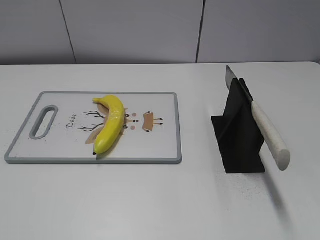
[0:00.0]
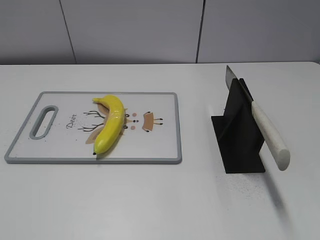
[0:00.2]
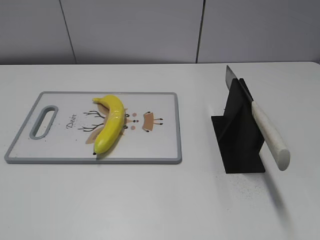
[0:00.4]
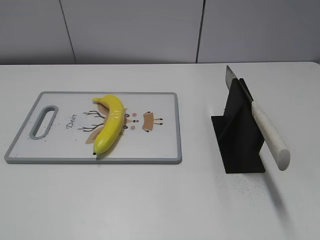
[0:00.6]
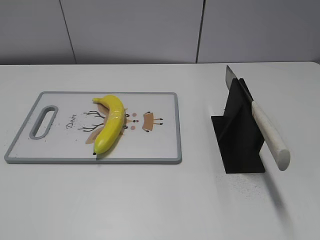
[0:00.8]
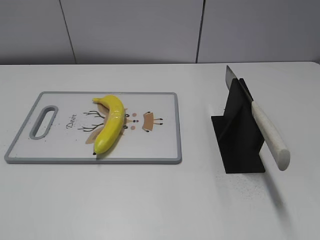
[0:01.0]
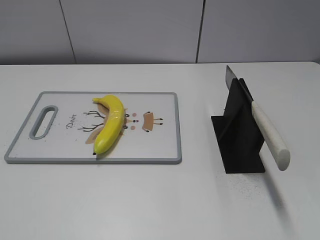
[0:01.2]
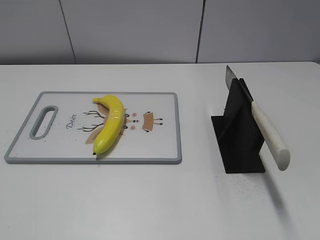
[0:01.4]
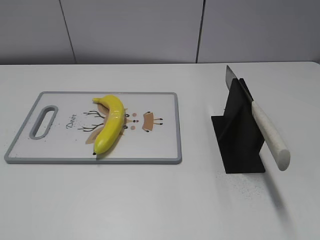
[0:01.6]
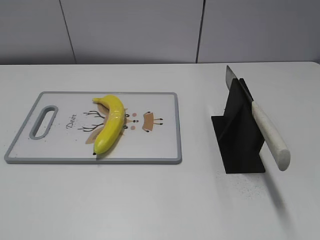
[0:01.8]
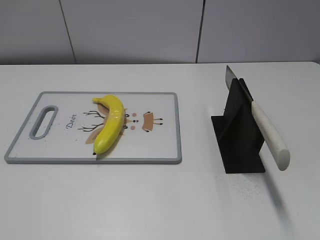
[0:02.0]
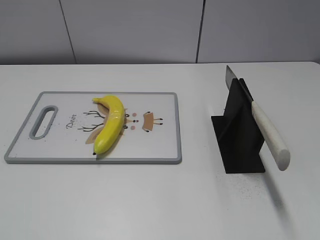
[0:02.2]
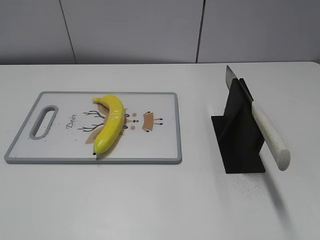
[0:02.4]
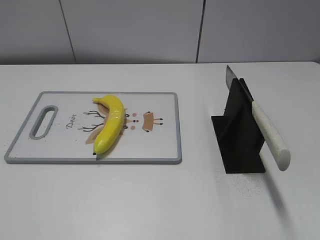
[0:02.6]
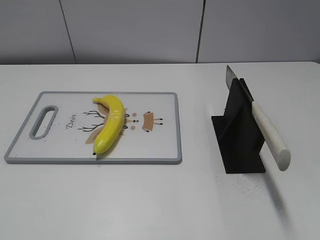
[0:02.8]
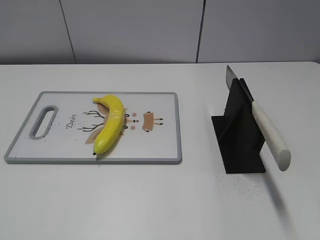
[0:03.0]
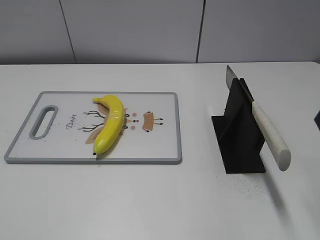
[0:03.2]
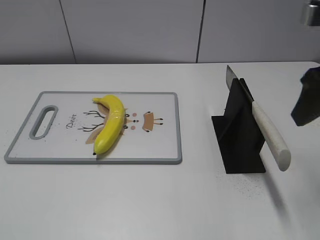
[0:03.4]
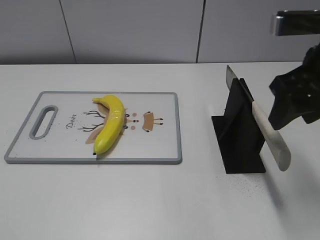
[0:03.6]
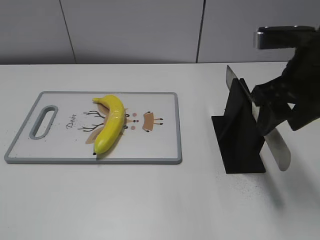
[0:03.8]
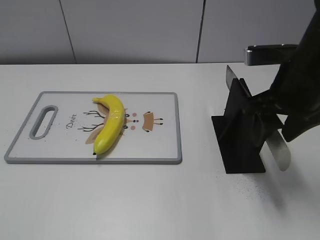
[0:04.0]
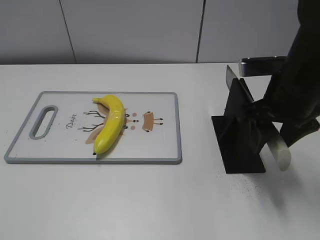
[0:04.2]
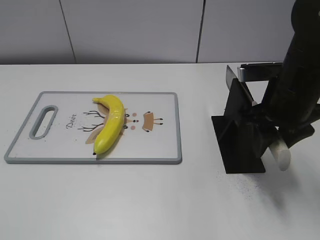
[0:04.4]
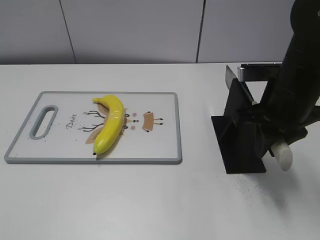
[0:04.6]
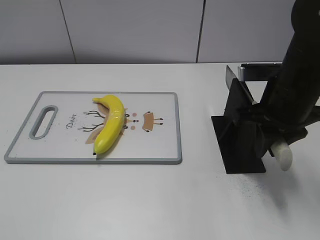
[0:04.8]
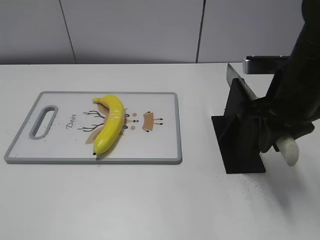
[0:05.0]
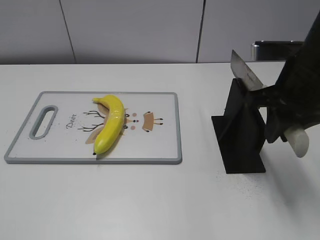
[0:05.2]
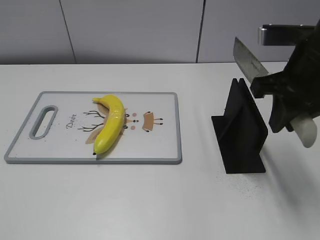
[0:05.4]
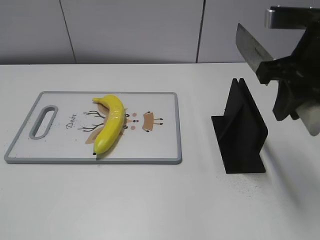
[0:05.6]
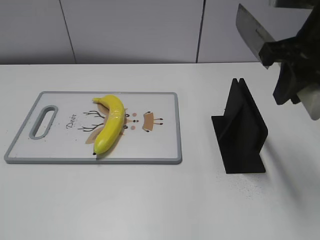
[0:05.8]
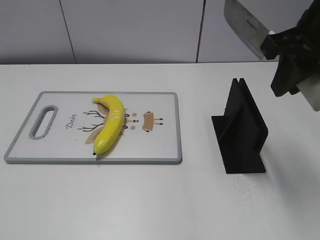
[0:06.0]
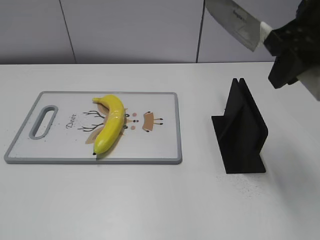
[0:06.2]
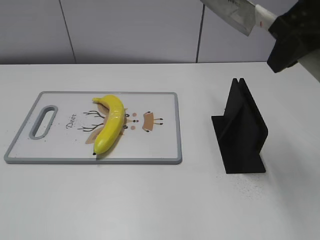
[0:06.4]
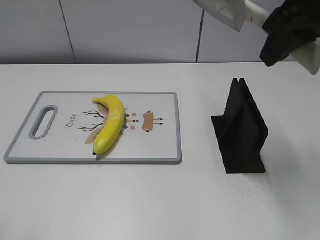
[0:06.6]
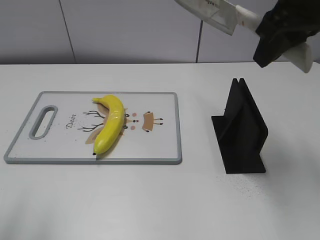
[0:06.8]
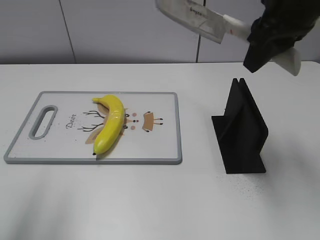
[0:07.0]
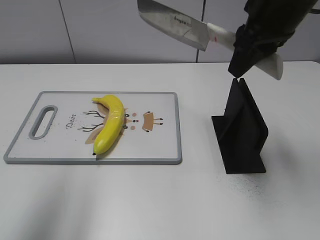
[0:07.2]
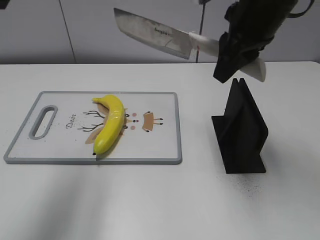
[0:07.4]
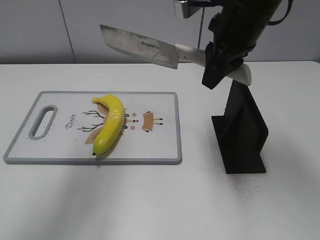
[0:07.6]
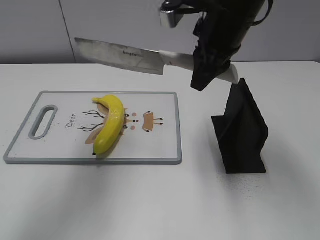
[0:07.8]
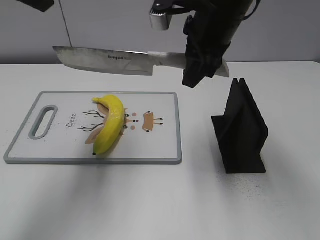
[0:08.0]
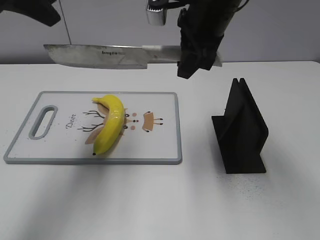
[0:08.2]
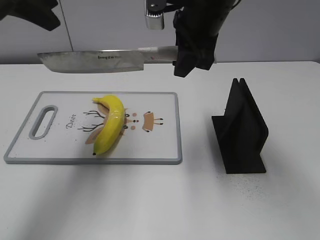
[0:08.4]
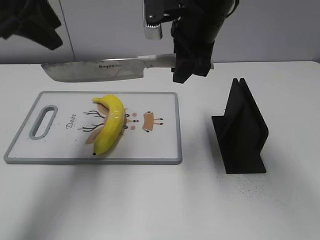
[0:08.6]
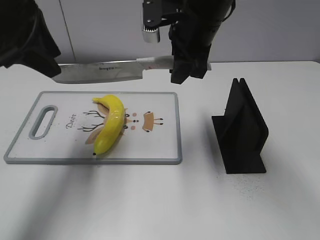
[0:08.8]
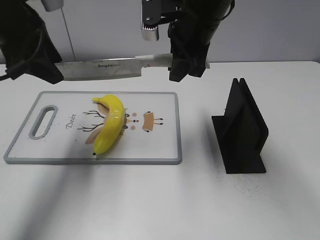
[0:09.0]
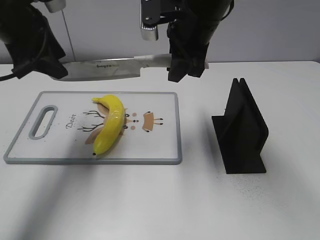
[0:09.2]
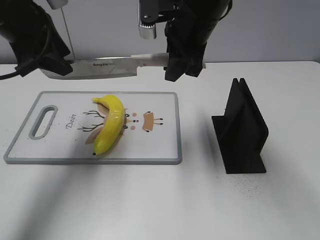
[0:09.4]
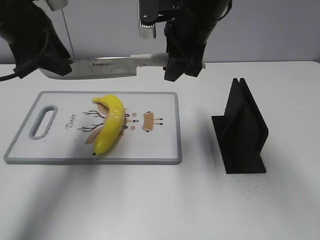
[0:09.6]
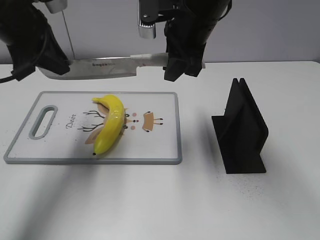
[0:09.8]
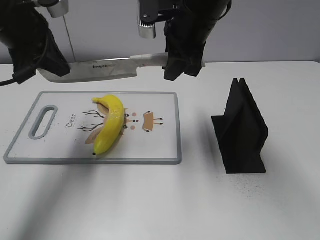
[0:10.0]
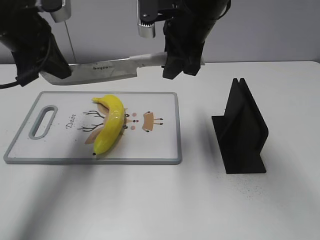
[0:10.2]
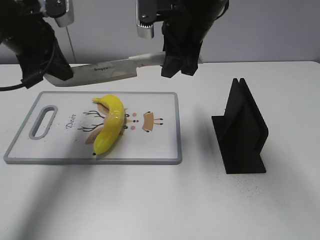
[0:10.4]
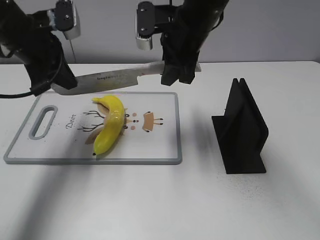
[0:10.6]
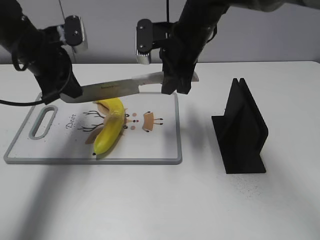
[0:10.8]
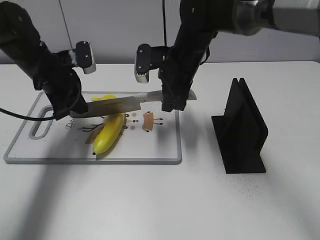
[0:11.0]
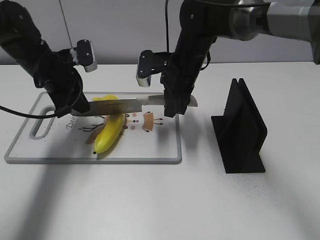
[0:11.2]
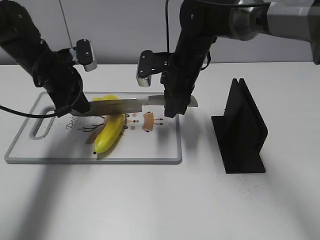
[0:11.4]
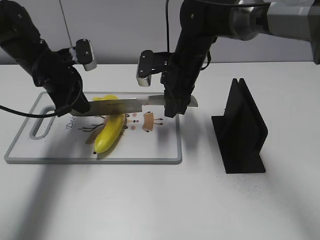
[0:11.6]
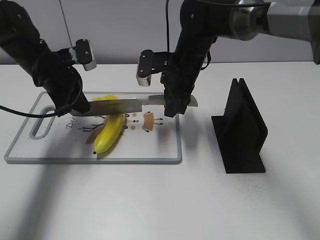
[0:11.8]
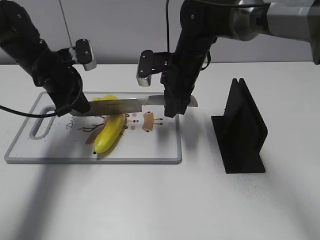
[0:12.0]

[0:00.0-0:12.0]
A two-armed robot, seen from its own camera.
Task of the whole recording: cut plastic banana.
Step, 0:00.0 to 0:05.6: Grab the knife handle with your right hand.
0:03.0 to 0:04.4: The right gripper is displaced downward, forward and to the left by some 20 cm, and closes.
0:04.4 to 0:06.0: The right gripper is displaced upward by roughly 10 cm, and closes its fingers.
0:06.0 to 0:07.6: The right gripper shifts about 10 cm forward and to the left, while the left gripper goes some 30 cm forward and upward.
0:07.6 to 0:09.0: The right gripper heads to the left, covering about 5 cm. The left gripper shifts some 15 cm downward and forward.
0:09.0 to 0:10.4: The left gripper closes up.
0:10.4 to 0:12.0: Both grippers move downward, some 10 cm.

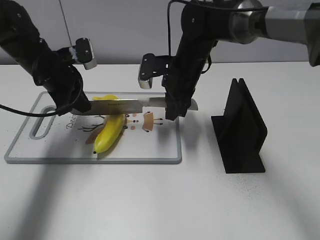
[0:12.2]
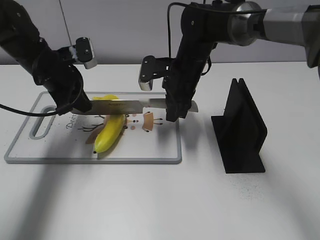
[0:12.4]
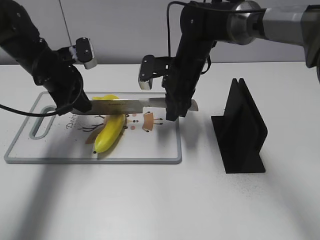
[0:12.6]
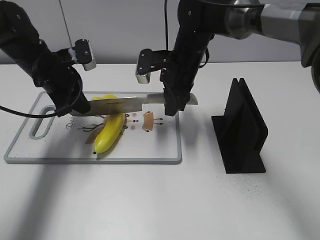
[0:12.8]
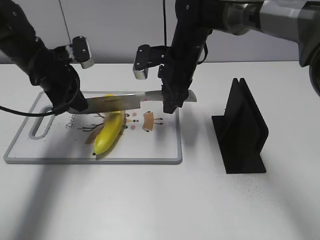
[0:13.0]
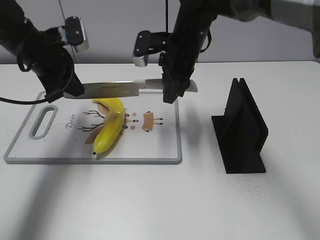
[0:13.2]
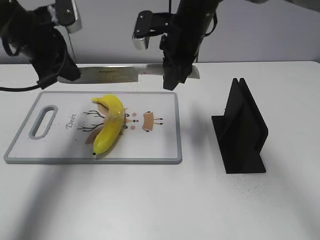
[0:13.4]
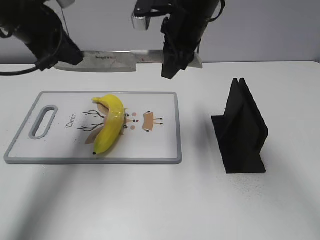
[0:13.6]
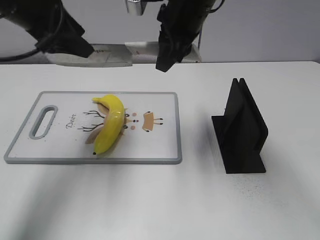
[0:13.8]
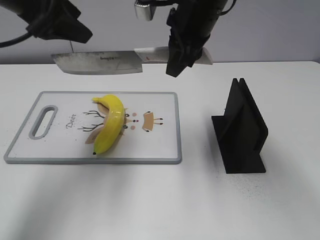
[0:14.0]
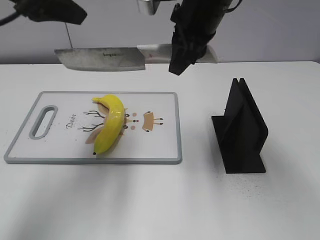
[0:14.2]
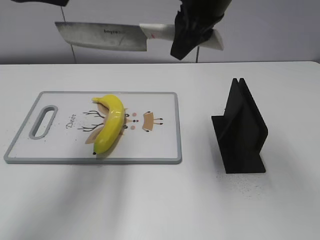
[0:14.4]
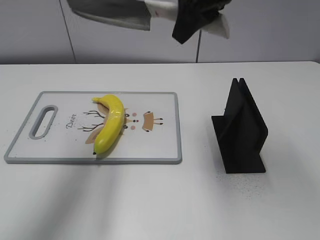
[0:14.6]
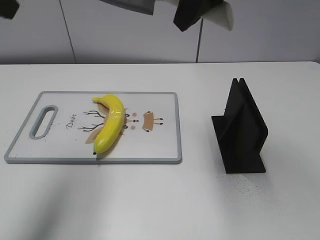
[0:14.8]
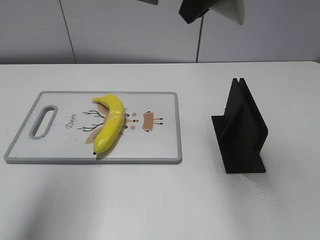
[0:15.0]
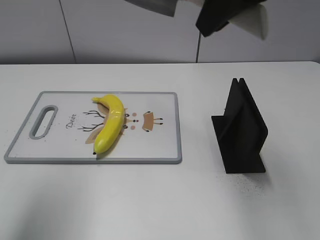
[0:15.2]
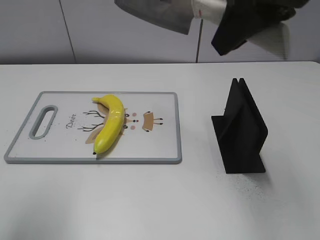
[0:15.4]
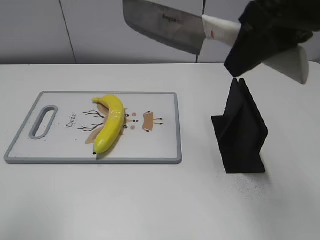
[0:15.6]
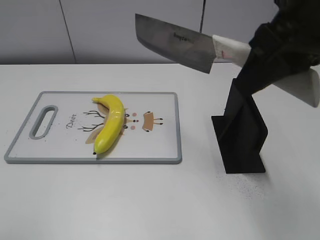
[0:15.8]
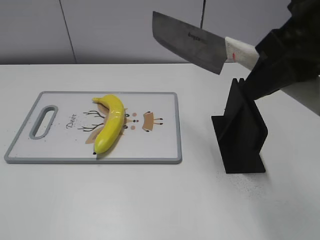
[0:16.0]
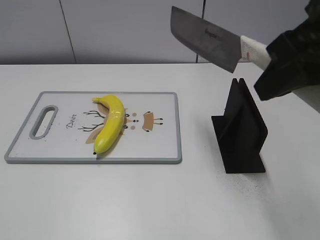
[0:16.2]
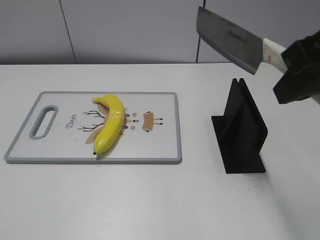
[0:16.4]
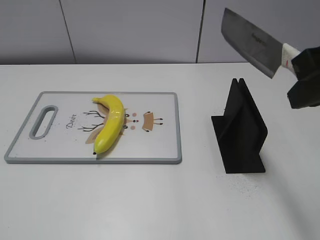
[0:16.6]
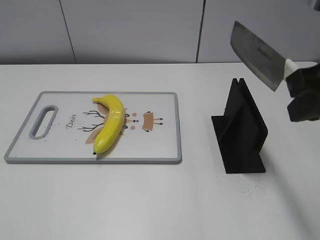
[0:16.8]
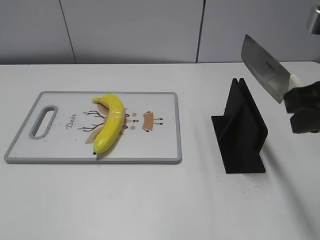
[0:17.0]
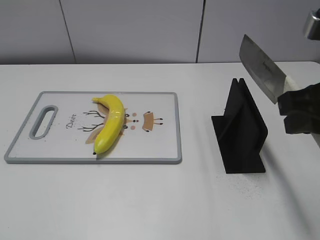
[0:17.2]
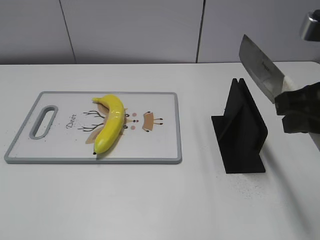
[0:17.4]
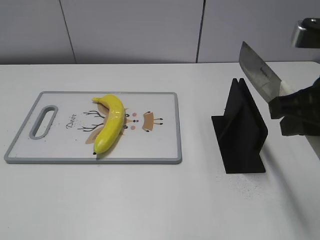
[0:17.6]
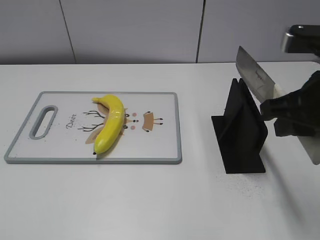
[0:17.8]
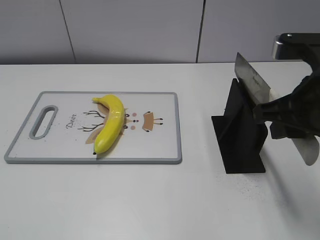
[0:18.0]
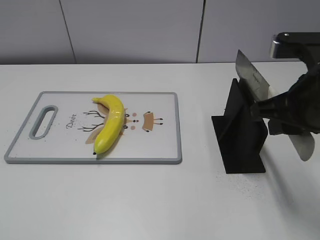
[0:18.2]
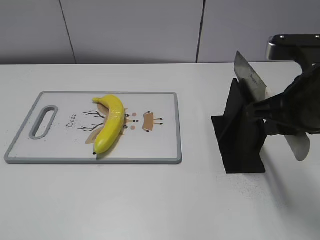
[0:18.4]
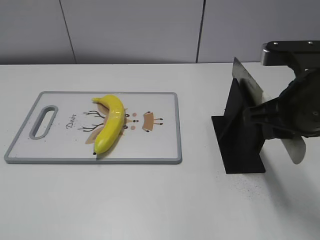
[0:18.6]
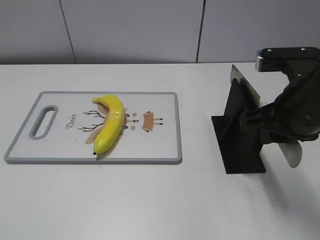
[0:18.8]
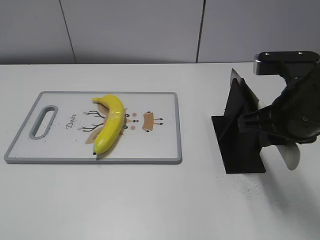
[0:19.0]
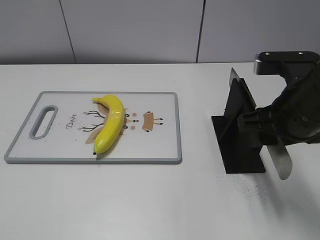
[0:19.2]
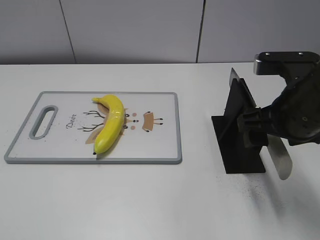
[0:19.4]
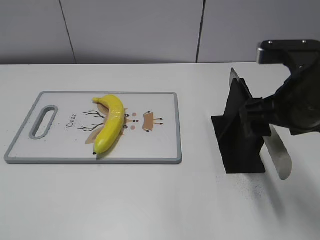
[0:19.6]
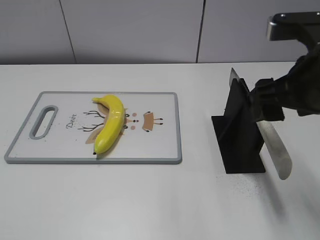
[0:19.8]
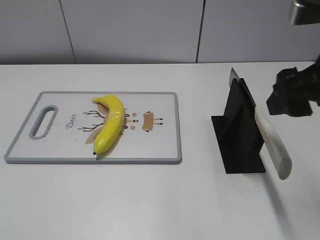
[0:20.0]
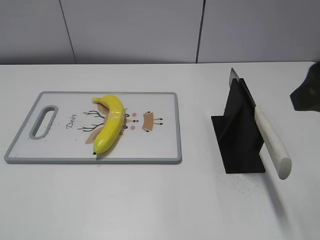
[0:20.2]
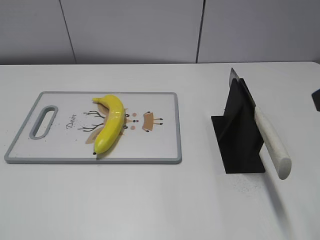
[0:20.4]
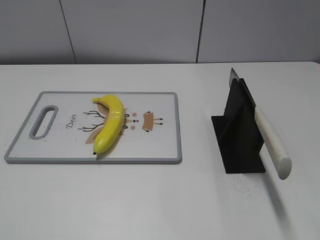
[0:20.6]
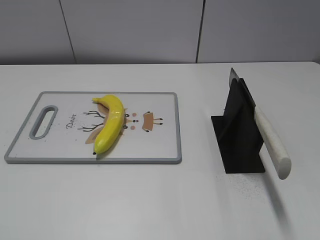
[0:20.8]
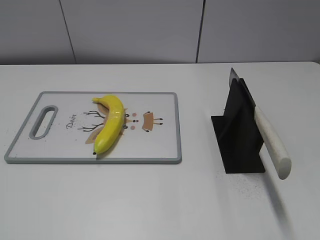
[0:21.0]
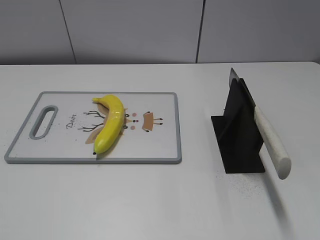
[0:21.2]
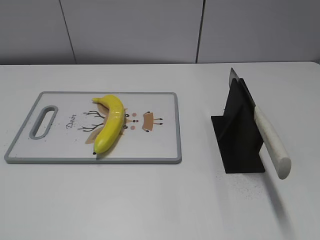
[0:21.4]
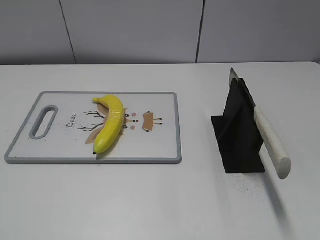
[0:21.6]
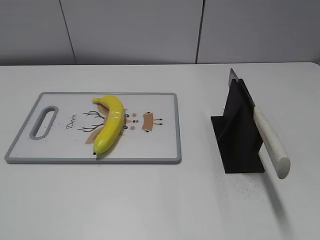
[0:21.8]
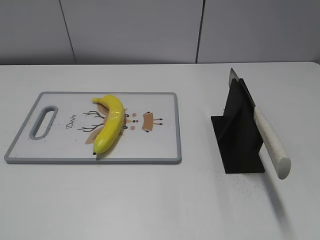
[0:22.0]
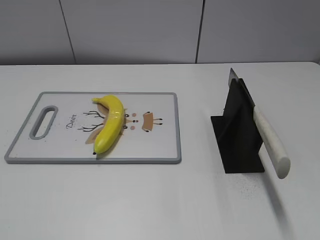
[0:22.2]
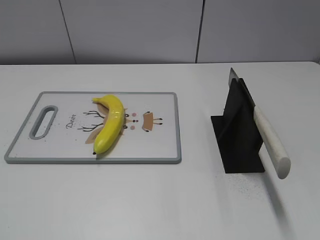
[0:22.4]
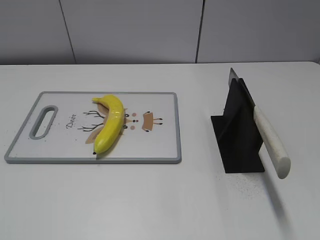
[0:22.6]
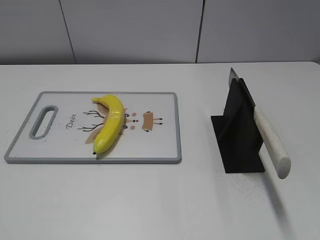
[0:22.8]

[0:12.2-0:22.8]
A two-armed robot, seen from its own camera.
Task of the whole recording: cut plastic banana.
Step, 0:12.6 to 0:14.6: Cut the banana with your right hand.
Step, 0:15.0 to 0:16.8: Lift the knife with your right hand.
0:12.2 to 0:13.8: Both grippers move upward, some 15 cm. The left gripper opens up.
0:13.8 to 0:15.2: The right gripper is displaced backward, upward and to the right by roughly 15 cm. Meanwhile the left gripper heads backward, upward and to the left, covering roughly 20 cm.
0:15.2 to 0:16.8: The right gripper goes some 15 cm backward, to the right and downward, while the left gripper shifts about 25 cm backward and downward.
0:16.8 to 0:18.2: The right gripper heads downward, covering approximately 5 cm.
0:18.2 to 0:19.8: The right gripper opens its fingers.
0:19.8 to 0:21.2: The right gripper heads backward and to the right, covering about 20 cm.
